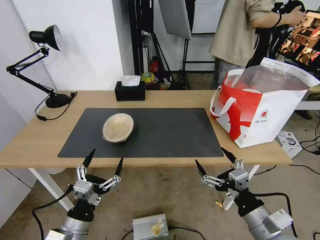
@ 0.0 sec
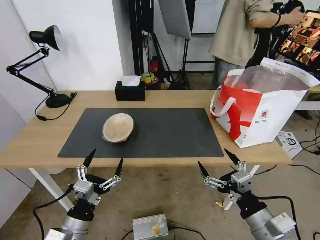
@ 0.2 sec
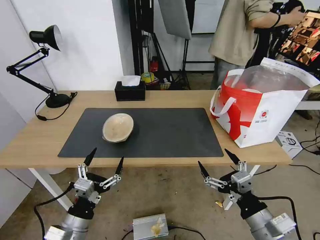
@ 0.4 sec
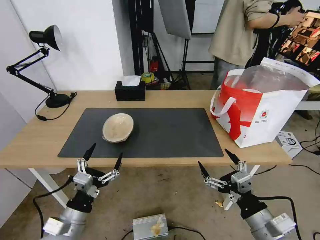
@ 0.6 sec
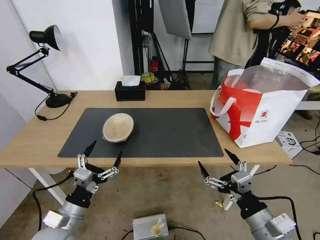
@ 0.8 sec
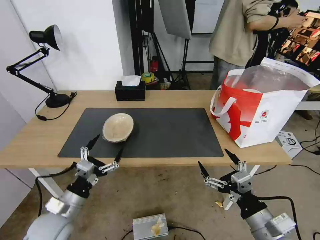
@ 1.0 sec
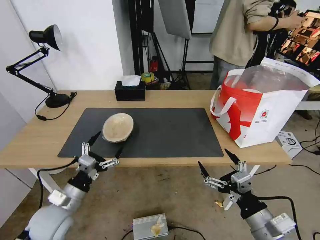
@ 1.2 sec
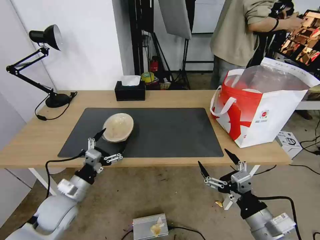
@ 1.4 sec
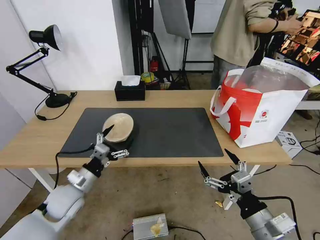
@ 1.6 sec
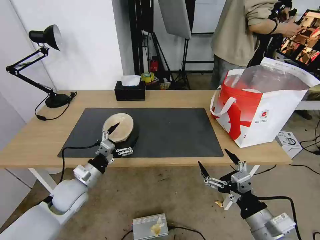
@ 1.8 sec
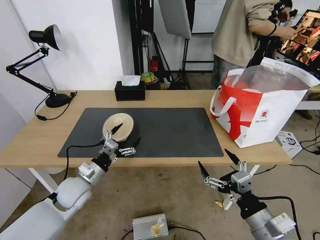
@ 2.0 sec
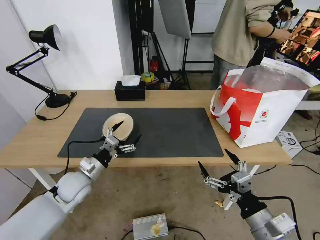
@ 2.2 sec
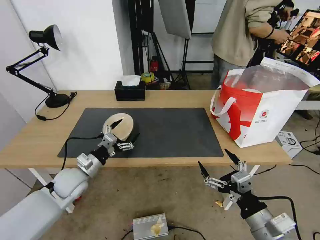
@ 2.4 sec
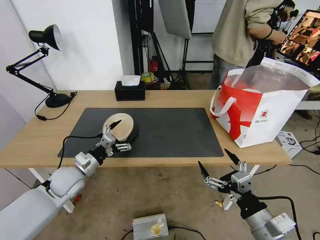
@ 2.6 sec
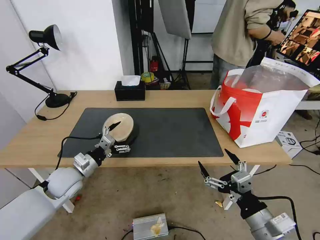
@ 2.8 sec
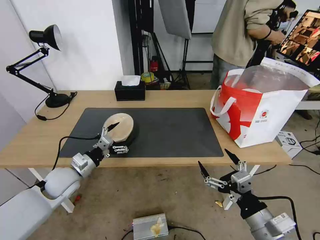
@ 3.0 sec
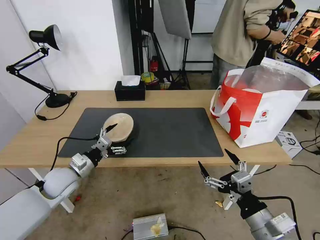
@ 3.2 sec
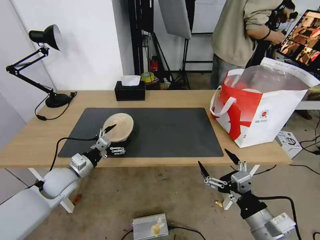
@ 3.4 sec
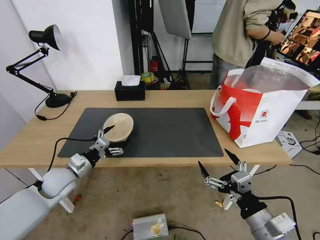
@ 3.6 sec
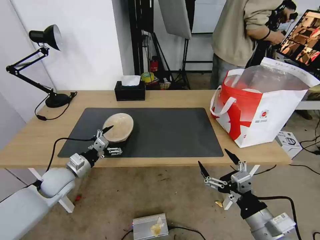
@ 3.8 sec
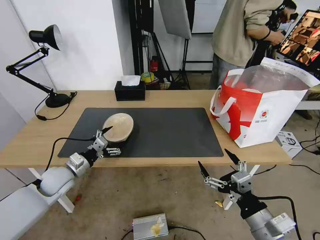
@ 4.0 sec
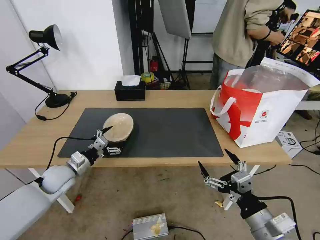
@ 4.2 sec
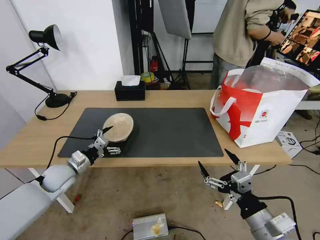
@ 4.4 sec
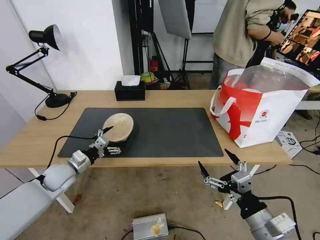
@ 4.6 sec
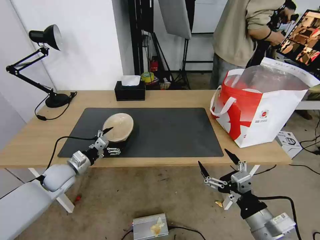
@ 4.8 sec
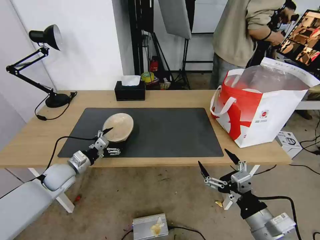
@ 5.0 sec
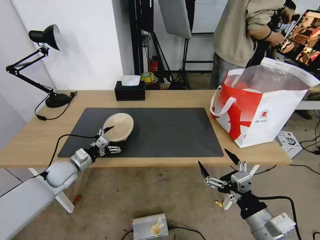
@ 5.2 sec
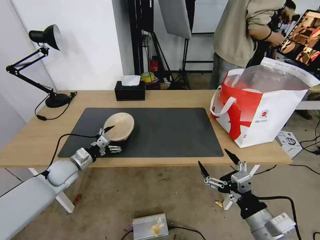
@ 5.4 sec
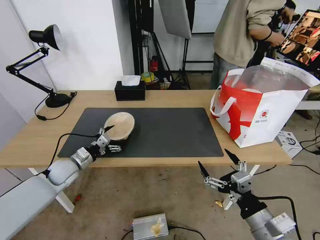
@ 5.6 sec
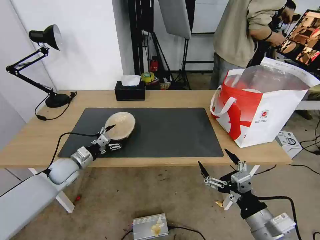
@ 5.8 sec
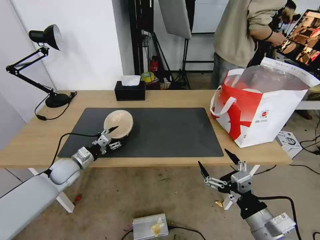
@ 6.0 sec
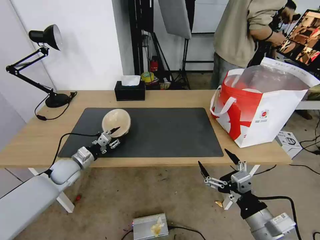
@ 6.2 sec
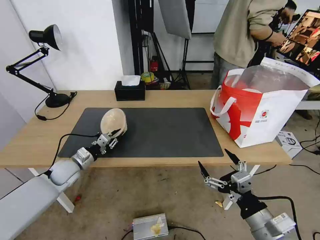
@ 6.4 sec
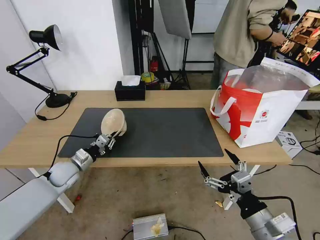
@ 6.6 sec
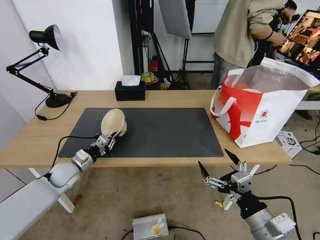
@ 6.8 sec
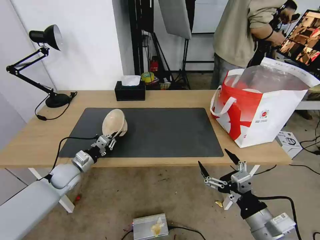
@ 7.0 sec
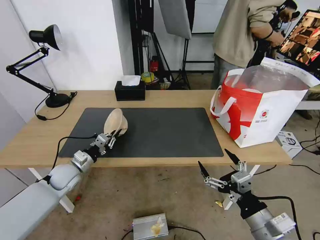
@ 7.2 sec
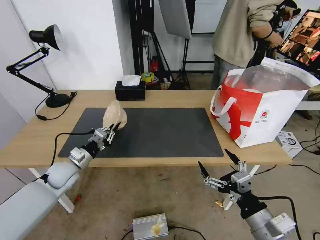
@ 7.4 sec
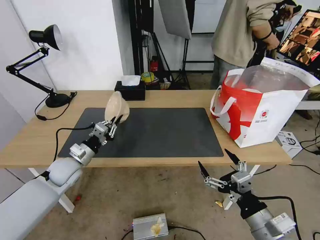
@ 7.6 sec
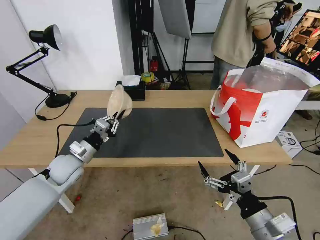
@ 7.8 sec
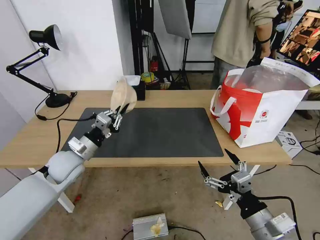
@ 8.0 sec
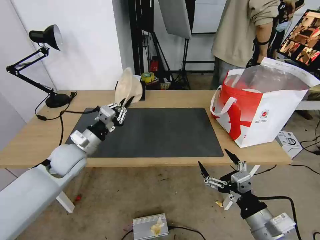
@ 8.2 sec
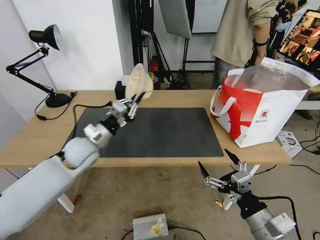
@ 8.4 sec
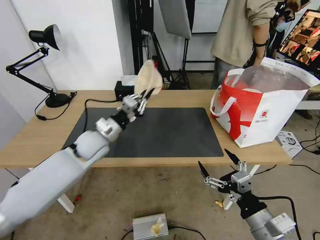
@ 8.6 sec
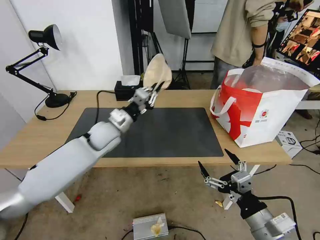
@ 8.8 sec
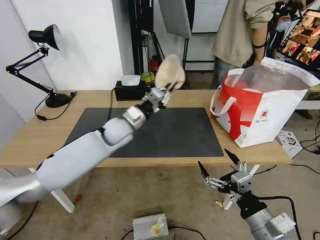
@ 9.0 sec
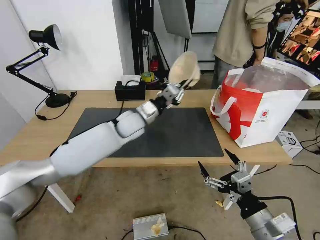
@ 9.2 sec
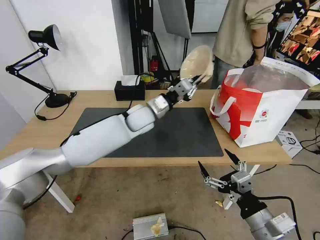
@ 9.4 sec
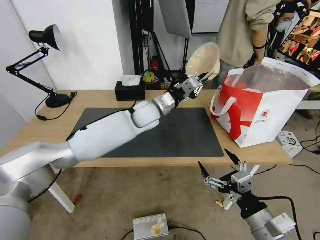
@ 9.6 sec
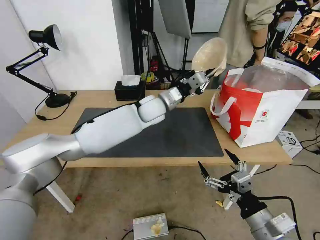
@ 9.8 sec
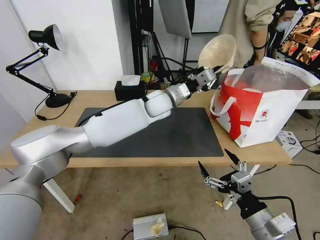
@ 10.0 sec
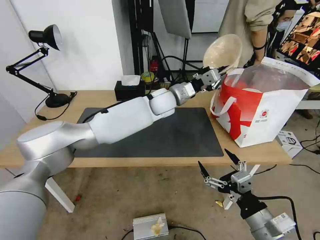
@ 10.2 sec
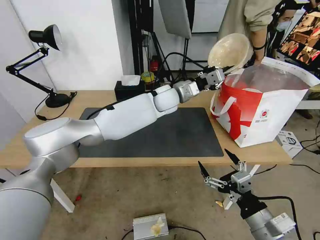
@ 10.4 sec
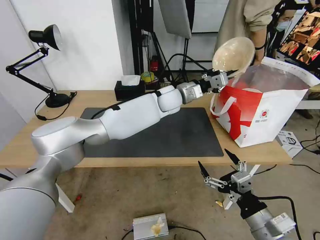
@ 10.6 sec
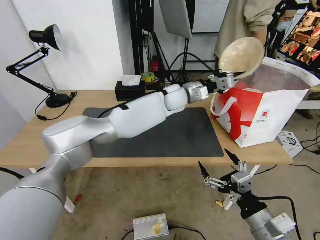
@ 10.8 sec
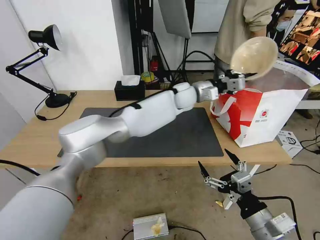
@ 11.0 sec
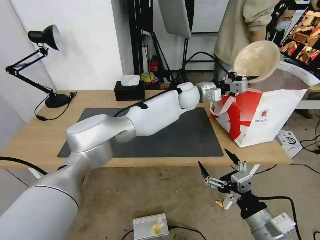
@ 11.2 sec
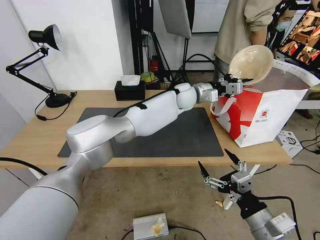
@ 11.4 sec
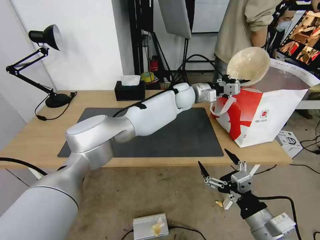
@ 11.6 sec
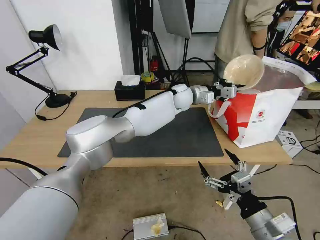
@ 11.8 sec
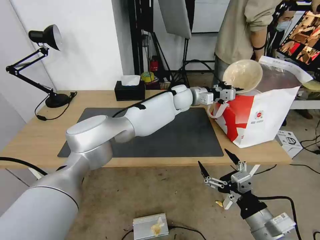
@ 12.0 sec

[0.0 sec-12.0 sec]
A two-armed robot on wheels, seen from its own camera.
Task of the whole recording: Pick up the trash from the table and place it into the takeout bag.
0.0 sec to 1.6 sec: The left gripper travels forward by about 15 cm.
1.6 sec to 3.0 sec: The left gripper heads forward, covering approximately 5 cm.
3.0 sec to 4.4 sec: The grippers move only a little.
4.4 sec to 6.0 sec: The left gripper closes up.
6.0 sec to 7.6 sec: The left gripper ends up approximately 5 cm from where it was, and closes its fingers.
7.6 sec to 9.0 sec: The left gripper moves to the right, forward and upward, roughly 25 cm.
9.0 sec to 10.4 sec: The left gripper shifts approximately 20 cm to the right, forward and upward.
10.4 sec to 12.0 sec: The left gripper heads to the right, covering some 5 cm.

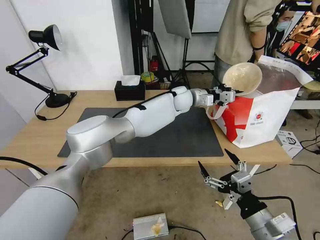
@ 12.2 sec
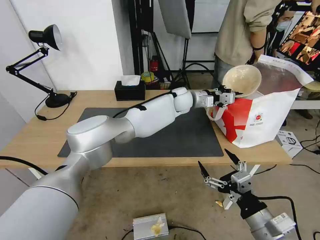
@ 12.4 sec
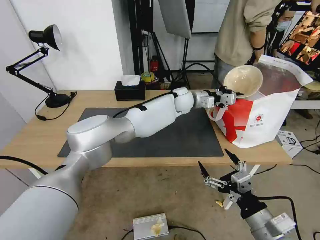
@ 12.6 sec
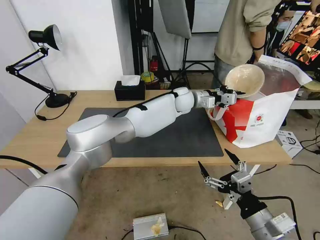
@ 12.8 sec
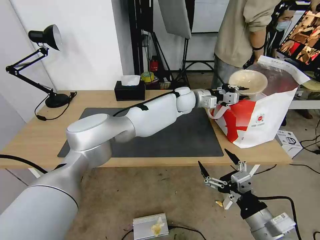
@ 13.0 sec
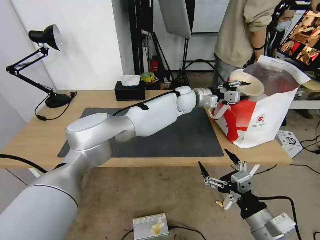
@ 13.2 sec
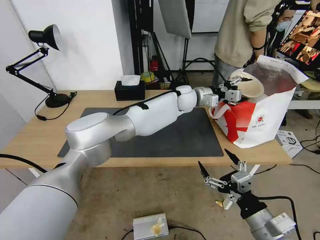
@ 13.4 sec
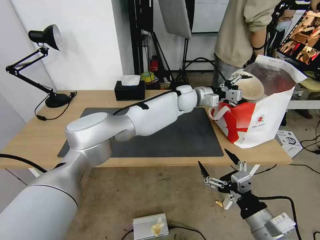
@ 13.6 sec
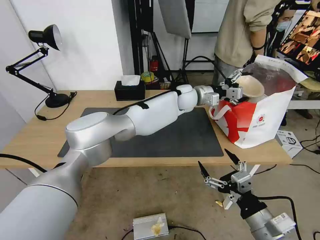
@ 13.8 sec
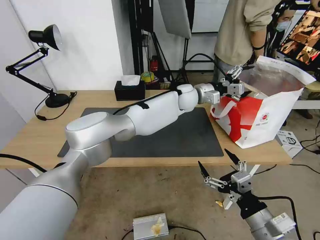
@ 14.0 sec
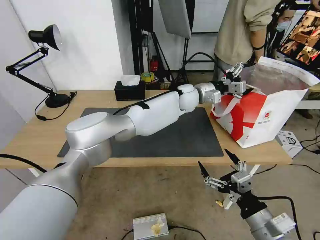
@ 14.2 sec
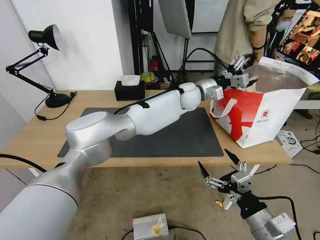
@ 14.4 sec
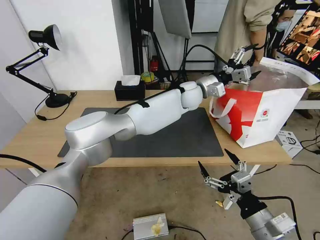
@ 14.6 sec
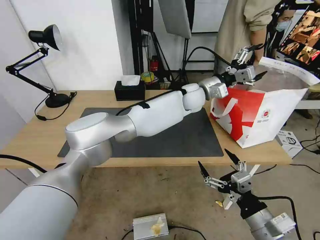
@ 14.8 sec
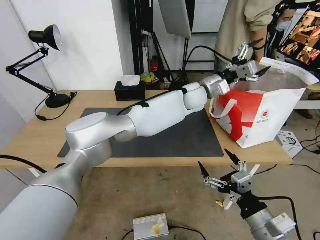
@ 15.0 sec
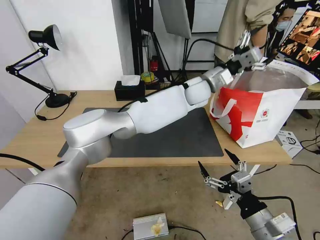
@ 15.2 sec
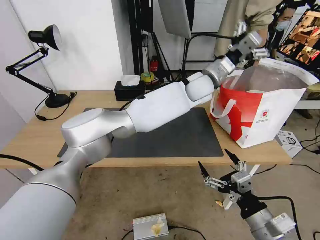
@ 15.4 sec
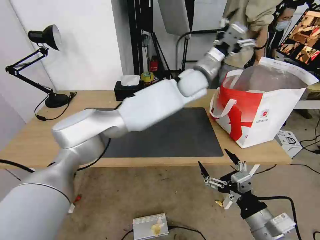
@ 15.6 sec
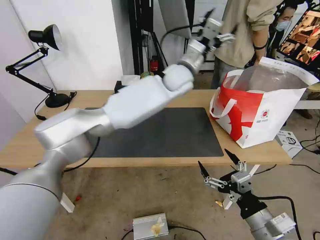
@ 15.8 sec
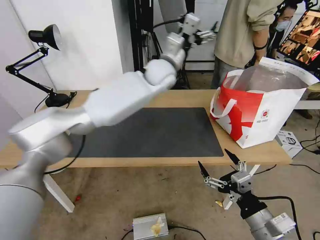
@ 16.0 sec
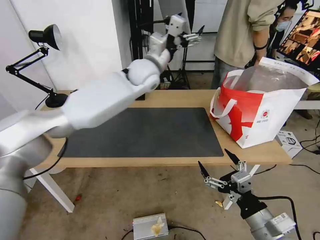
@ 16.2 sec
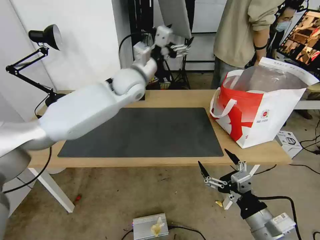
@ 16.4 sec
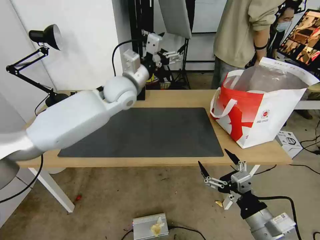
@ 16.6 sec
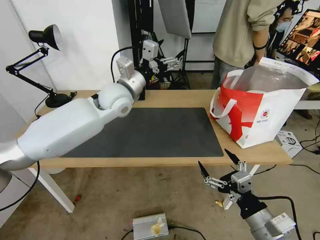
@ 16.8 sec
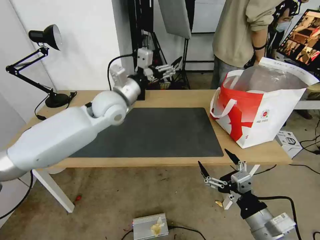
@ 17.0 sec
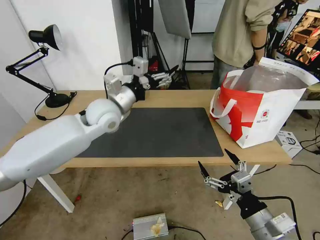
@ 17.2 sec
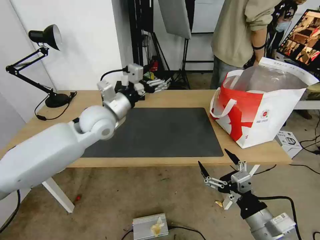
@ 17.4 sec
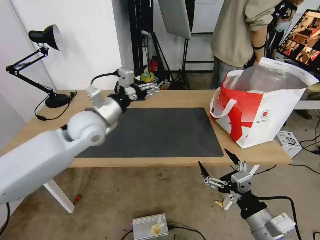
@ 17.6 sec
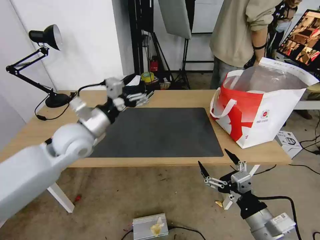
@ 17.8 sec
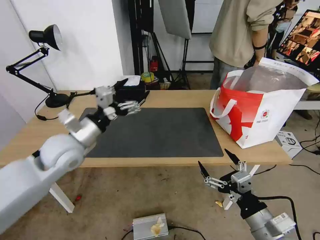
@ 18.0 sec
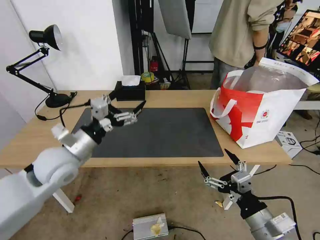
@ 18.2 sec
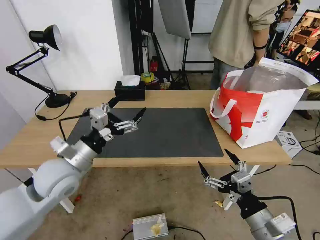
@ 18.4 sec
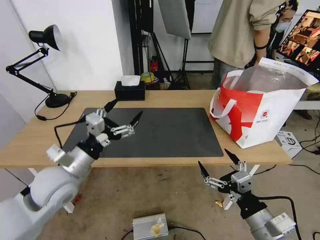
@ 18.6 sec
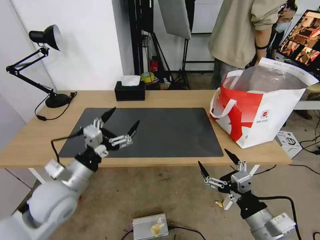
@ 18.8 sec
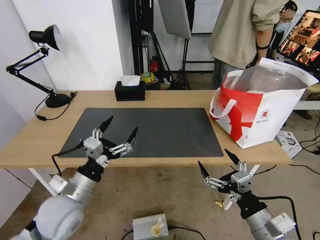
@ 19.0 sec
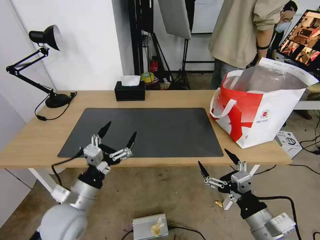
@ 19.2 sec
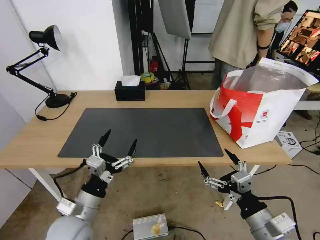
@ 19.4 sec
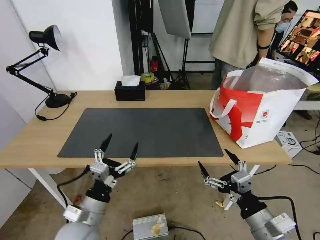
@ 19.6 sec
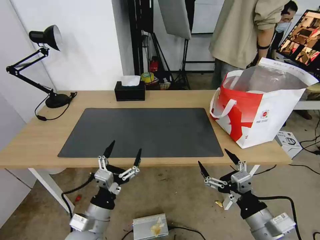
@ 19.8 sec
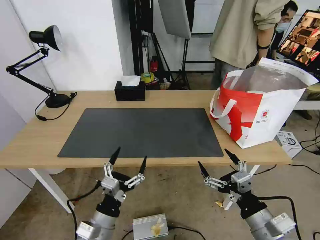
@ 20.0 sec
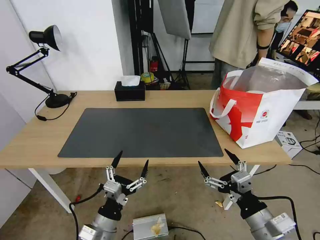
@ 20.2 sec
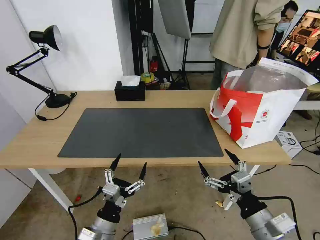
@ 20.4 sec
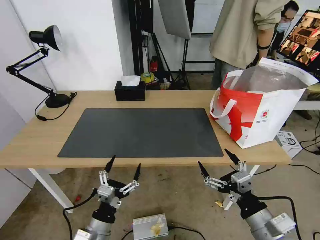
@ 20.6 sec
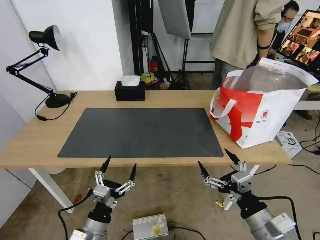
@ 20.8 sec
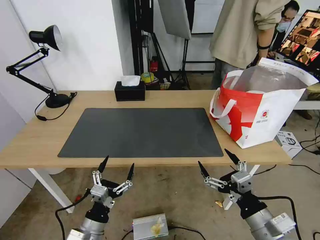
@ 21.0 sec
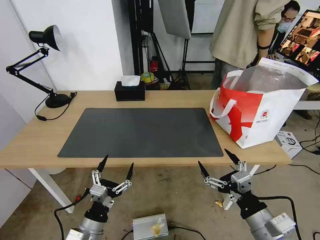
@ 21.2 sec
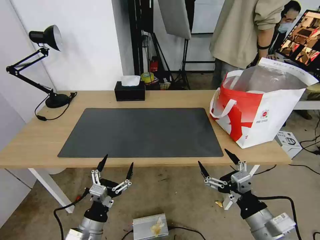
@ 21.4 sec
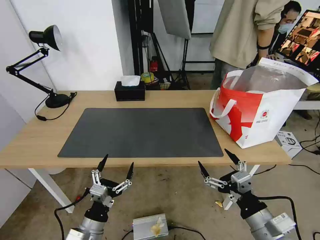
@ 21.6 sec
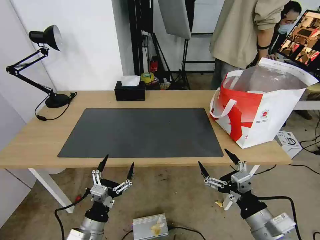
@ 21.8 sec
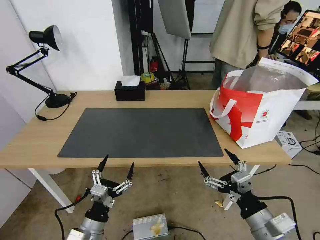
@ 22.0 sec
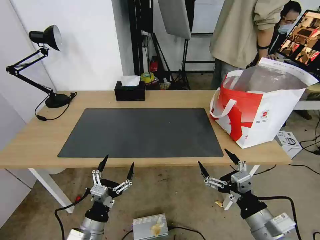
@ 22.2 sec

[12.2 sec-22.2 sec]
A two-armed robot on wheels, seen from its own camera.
Task of the whole recording: Pick up the trash from the table and place it into the takeout bag.
12.2 sec to 13.6 sec: The left gripper opens.
15.0 sec to 16.4 sec: The left gripper moves to the left, some 20 cm.
16.4 sec to 18.0 sec: The left gripper shifts some 25 cm backward, to the left and downward.
18.0 sec to 19.4 sec: The left gripper is displaced backward and downward by roughly 20 cm.
19.4 sec to 20.8 sec: The left gripper goes about 10 cm downward.
20.8 sec to 22.2 sec: Both grippers stay about where they are.
